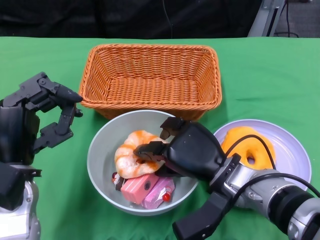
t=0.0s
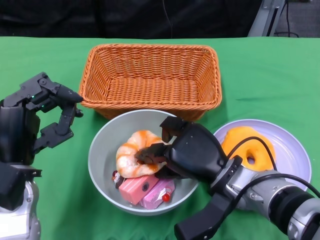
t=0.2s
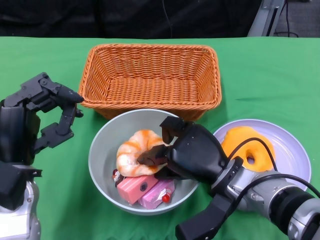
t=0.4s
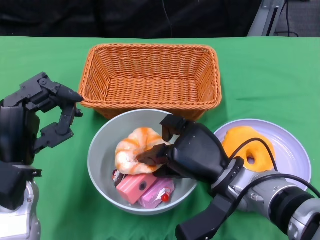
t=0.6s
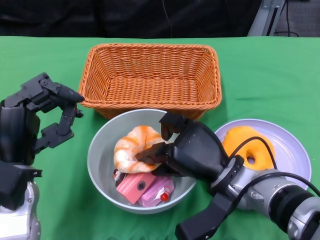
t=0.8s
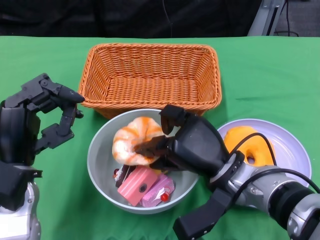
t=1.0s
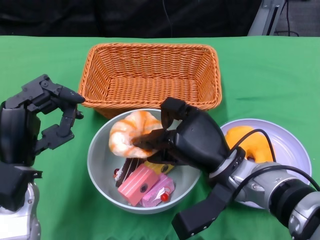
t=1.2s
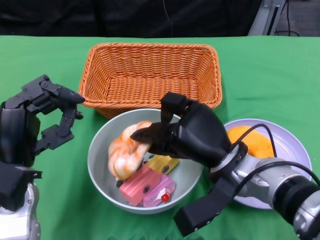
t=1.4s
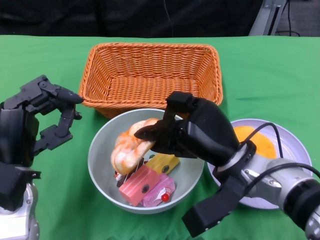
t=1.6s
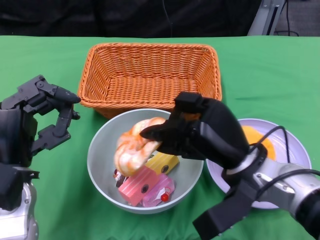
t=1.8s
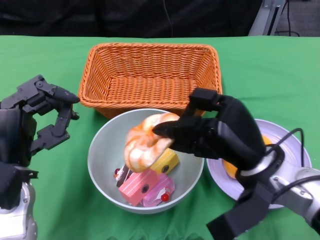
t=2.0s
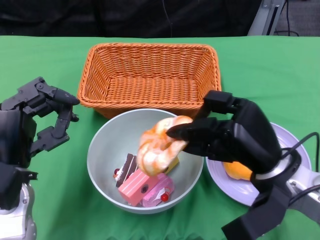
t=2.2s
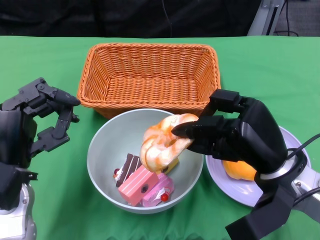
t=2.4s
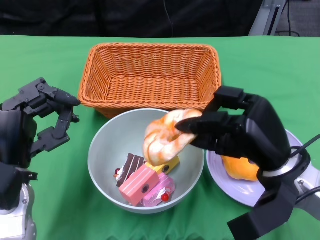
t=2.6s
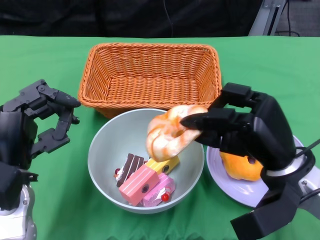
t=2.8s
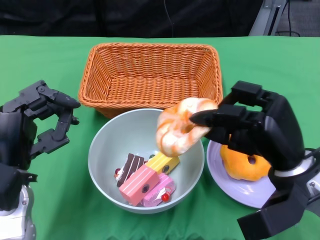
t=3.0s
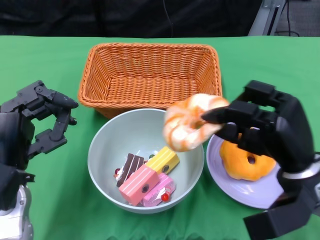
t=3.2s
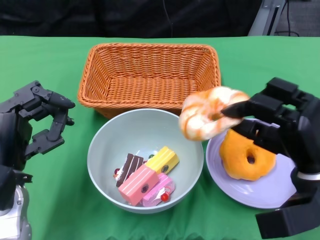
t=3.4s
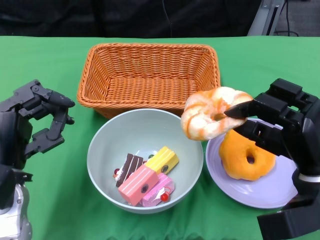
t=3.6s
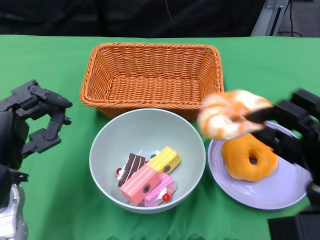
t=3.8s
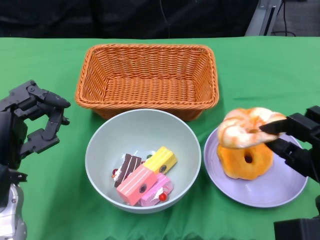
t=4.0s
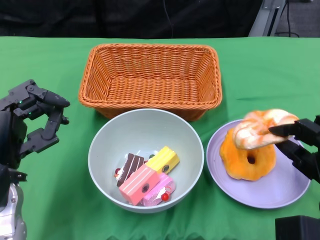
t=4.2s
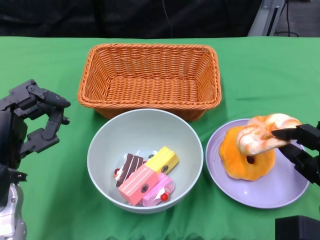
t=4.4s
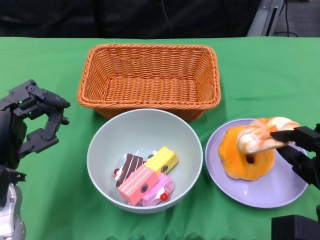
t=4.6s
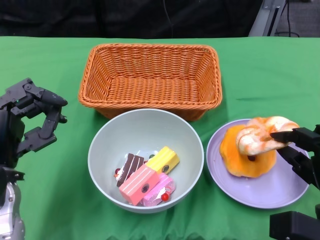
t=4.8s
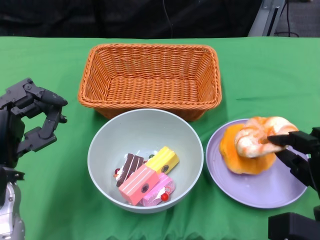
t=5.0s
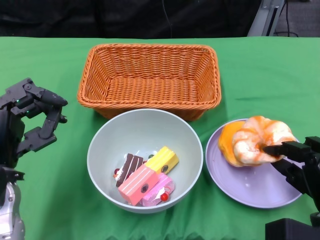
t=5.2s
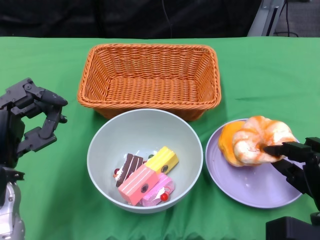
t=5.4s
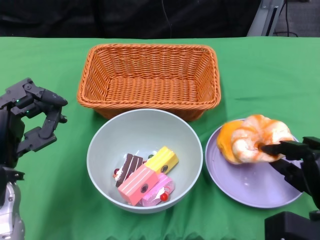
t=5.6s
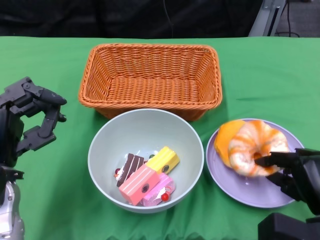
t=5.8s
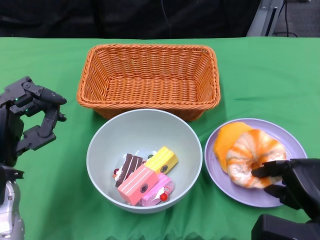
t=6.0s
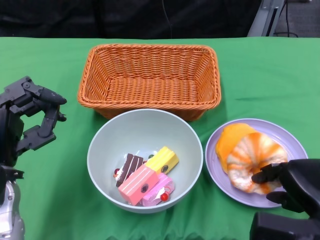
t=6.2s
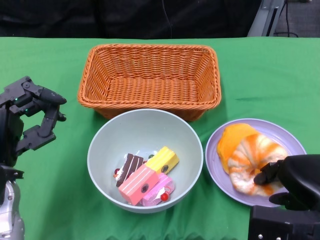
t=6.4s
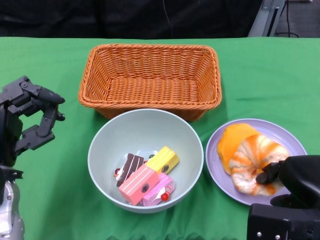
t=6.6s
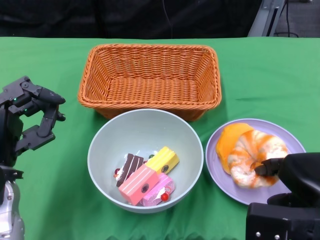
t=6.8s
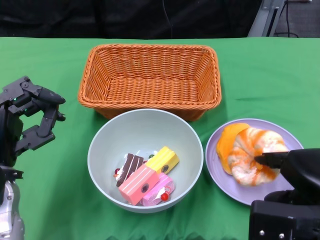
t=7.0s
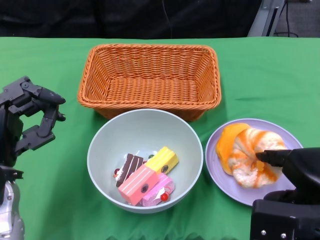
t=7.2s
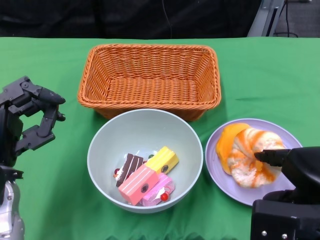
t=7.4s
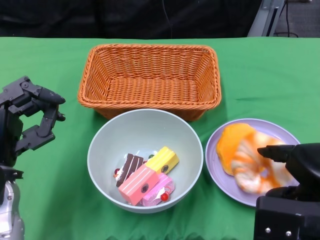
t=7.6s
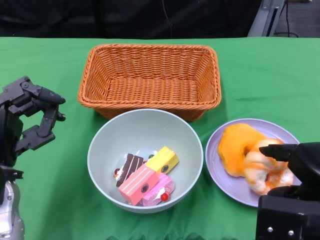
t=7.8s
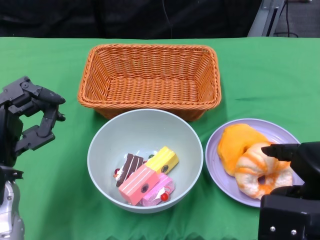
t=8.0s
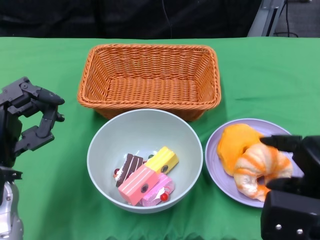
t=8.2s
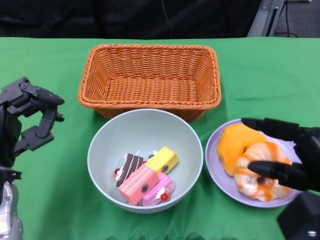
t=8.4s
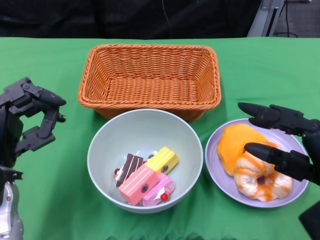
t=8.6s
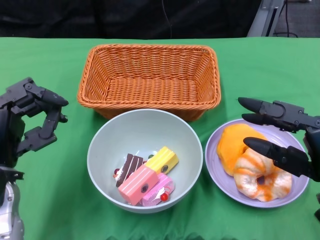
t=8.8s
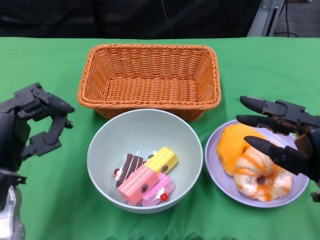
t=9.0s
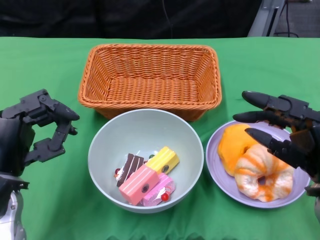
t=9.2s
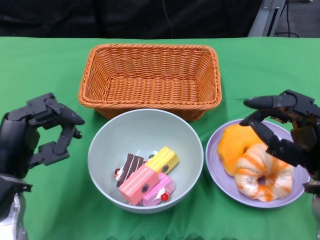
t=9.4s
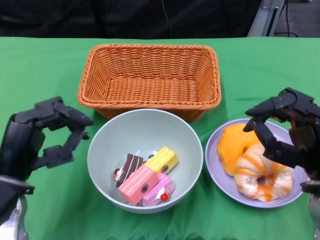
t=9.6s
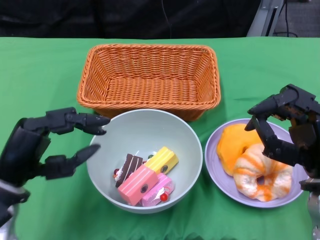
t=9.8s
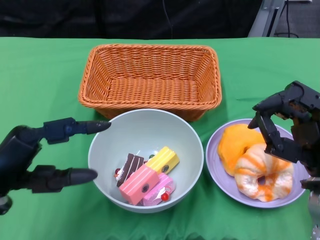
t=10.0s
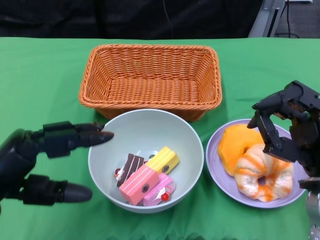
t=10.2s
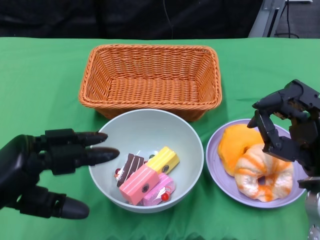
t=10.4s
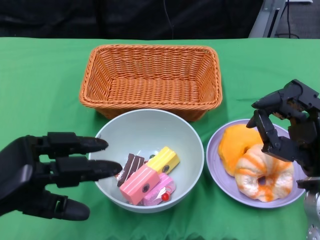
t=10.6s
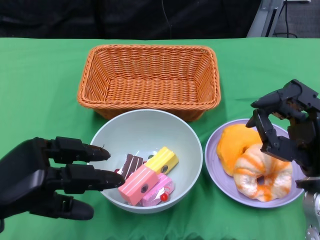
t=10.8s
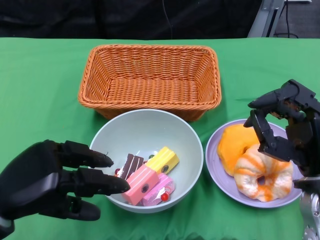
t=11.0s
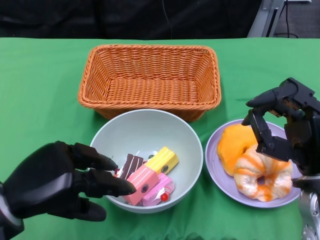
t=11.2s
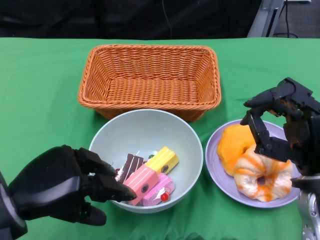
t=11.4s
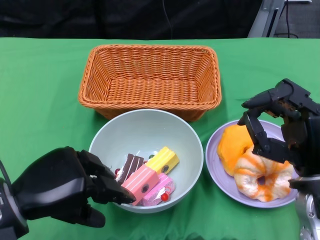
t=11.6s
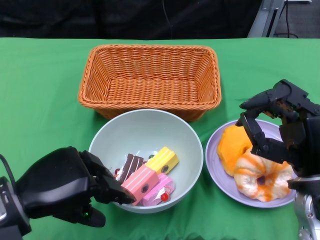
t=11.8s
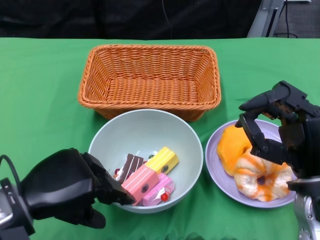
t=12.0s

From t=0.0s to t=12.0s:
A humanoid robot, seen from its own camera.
Step, from t=0.0s to t=8.0s: Pick up the bread with the right gripper and place it on the plate.
From t=1.6s to t=3.0s: The right hand travels to the right by roughly 5 cm.
From t=3.0s to t=4.4s: The right hand travels to the right and downward by about 10 cm.
From t=6.0s to t=7.6s: The right hand shifts roughly 10 cm upward.
From t=7.6s to t=9.0s: The right hand moves roughly 5 cm.
From t=9.0s to t=10.4s: The left hand goes approximately 5 cm backward.

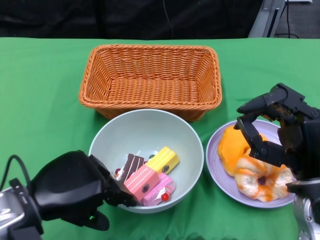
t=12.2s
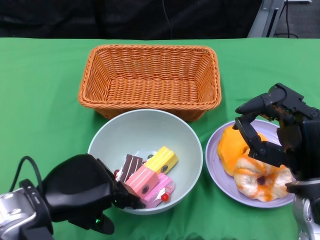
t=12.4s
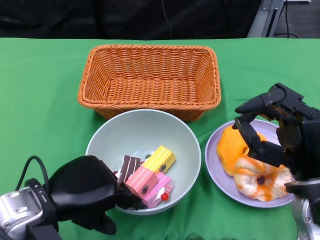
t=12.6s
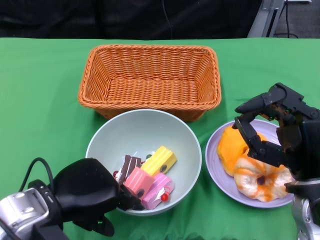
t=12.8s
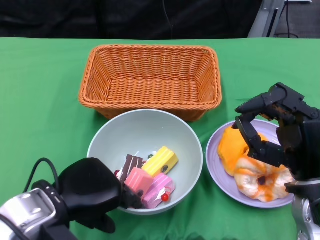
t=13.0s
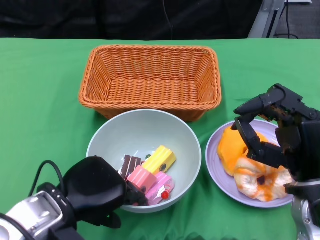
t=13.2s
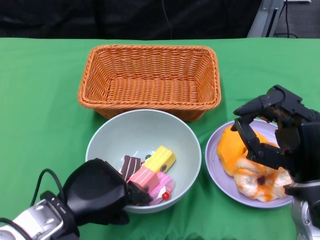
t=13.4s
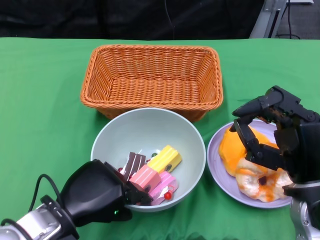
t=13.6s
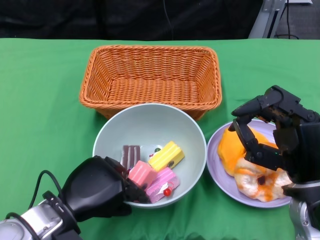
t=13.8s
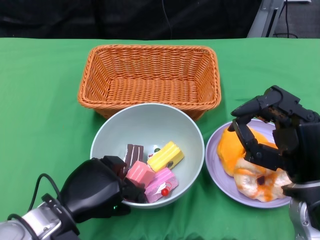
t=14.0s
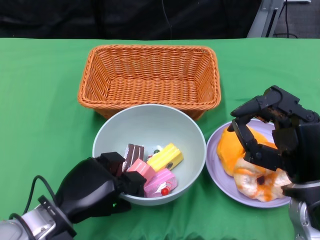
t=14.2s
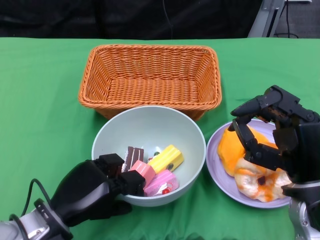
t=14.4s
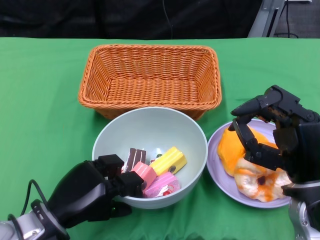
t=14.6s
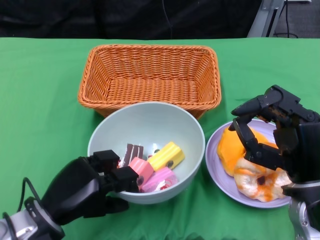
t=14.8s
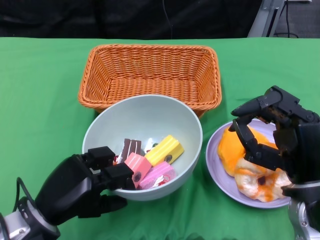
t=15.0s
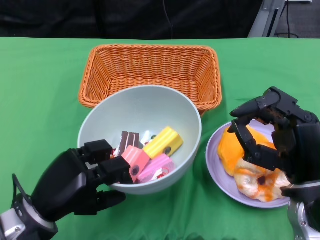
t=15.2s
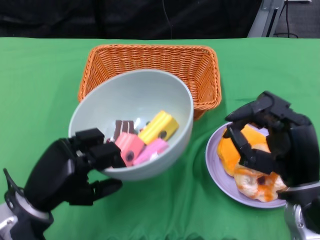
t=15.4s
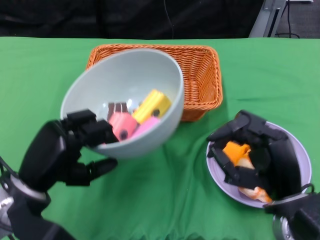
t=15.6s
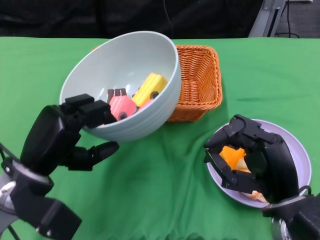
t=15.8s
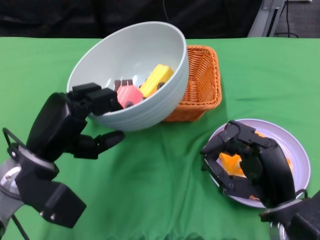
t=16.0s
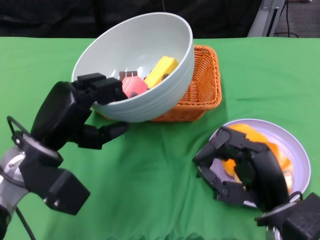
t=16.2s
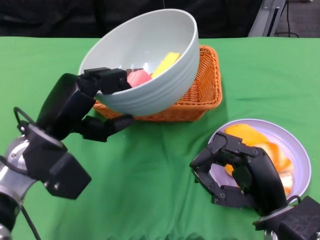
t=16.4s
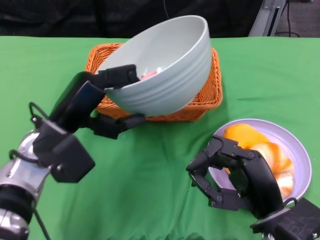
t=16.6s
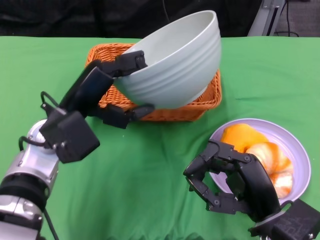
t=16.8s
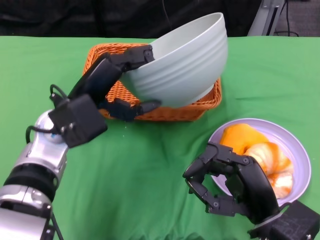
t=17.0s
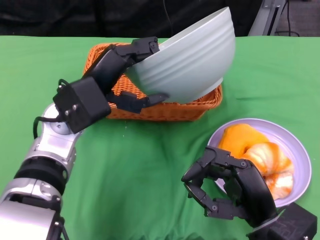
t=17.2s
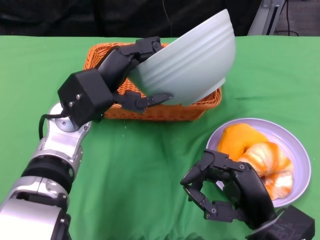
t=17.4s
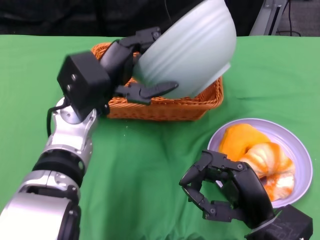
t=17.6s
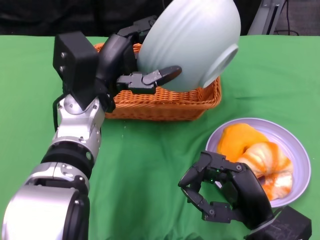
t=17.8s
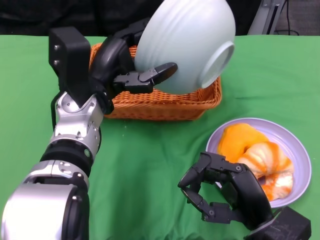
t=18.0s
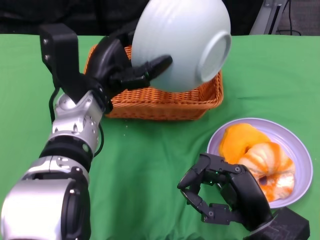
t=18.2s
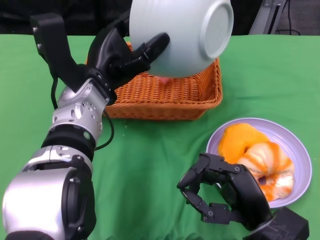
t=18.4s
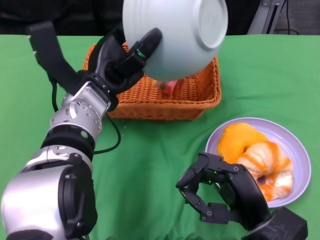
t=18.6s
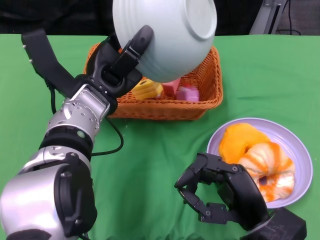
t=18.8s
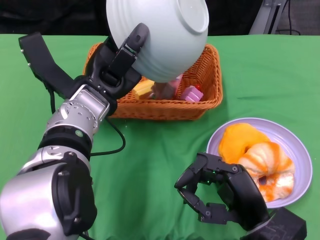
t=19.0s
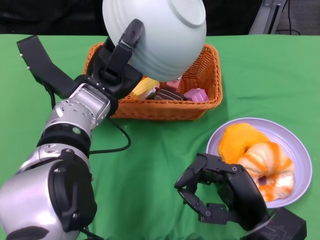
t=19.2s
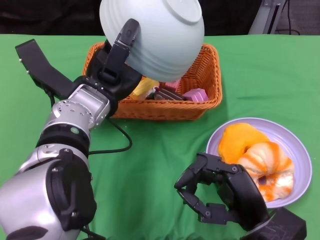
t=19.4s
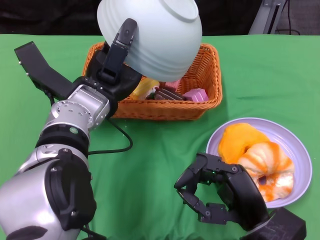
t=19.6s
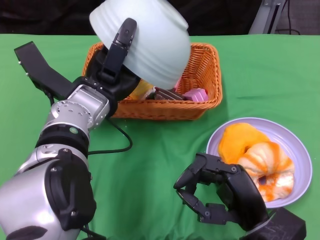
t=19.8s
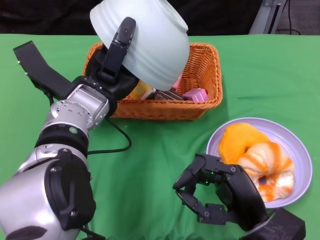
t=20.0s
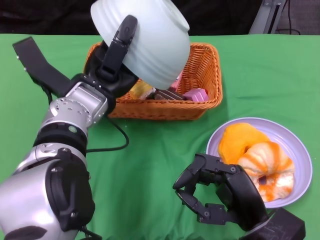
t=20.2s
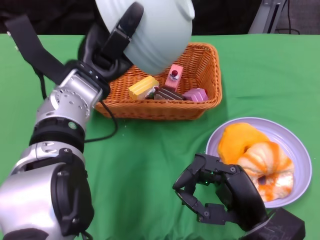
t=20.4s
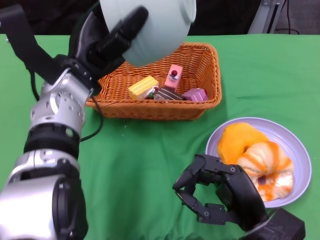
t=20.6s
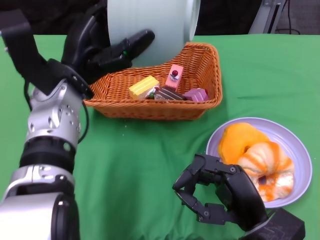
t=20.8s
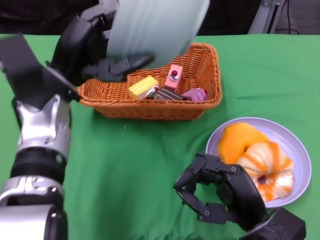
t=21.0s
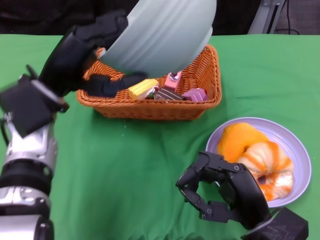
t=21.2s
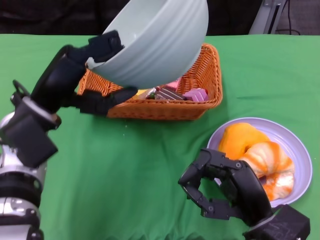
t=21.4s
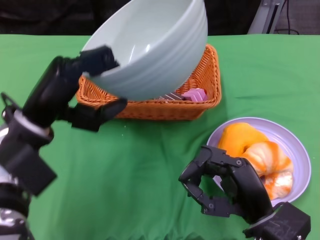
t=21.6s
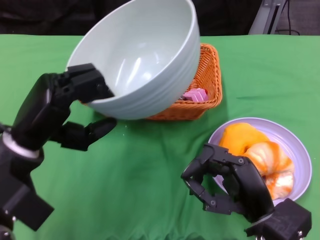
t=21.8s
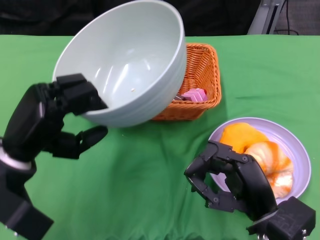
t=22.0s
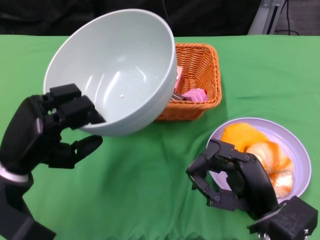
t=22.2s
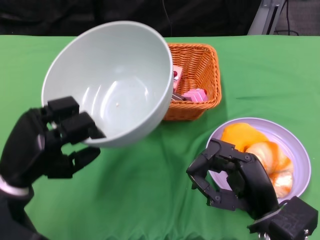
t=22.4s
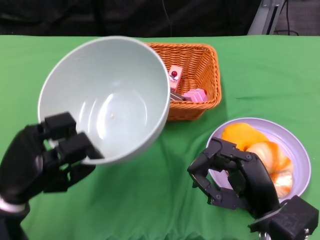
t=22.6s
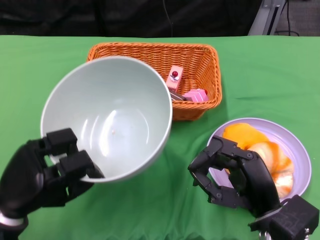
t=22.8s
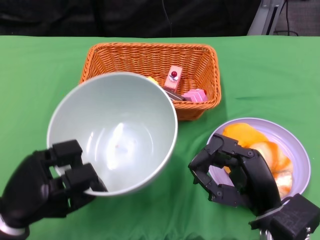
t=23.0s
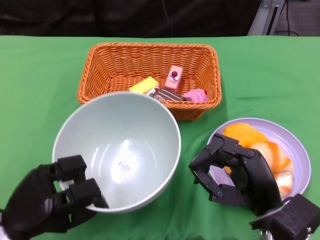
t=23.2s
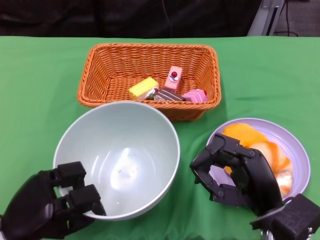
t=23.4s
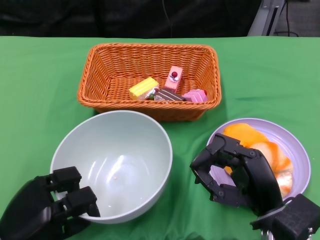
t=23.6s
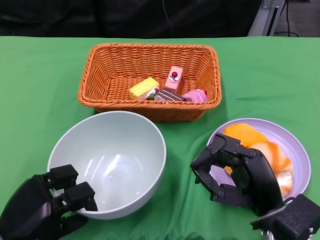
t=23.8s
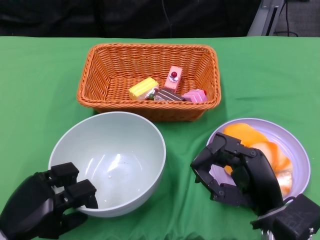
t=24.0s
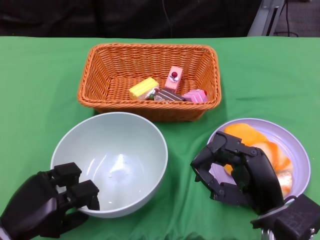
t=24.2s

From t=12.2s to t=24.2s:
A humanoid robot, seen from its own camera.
Step, from t=12.2s to t=14.4s: Grasp the bowl with the left gripper.
Step, from t=14.6s to t=19.2s: Pour the cake into the basket with the left gripper.
From t=12.2s to t=13.8s: The left hand moves downward, some 5 cm.
From t=15.2s to t=16.6s: The left hand heads forward and upward, covering about 10 cm. Meanwhile the right hand moves some 5 cm.
From t=16.6s to t=18.2s: The left hand goes about 5 cm forward and to the right.
From t=19.8s to t=21.2s: The left hand travels to the left by approximately 5 cm.
From t=21.2s to t=22.6s: The left hand is displaced downward, backward and to the left by approximately 15 cm.
From t=22.6s to t=24.2s: The left hand heads downward, covering approximately 5 cm.
